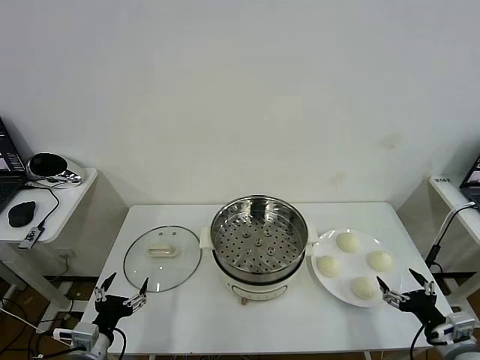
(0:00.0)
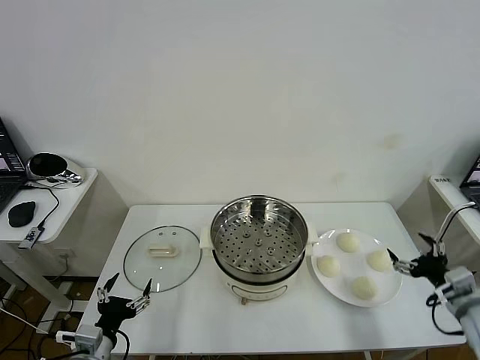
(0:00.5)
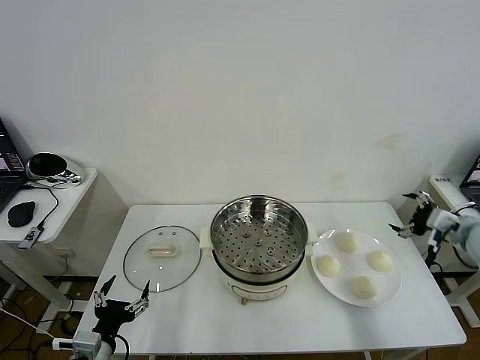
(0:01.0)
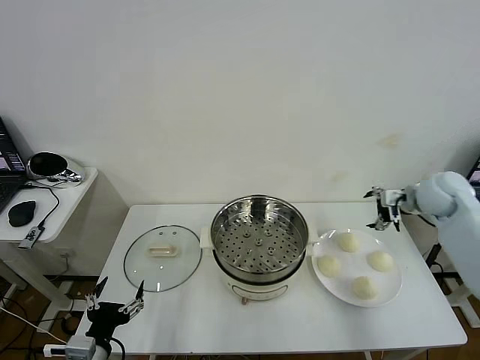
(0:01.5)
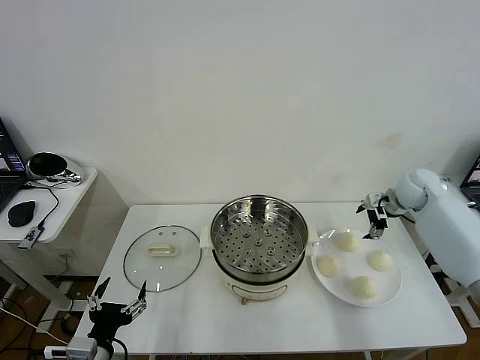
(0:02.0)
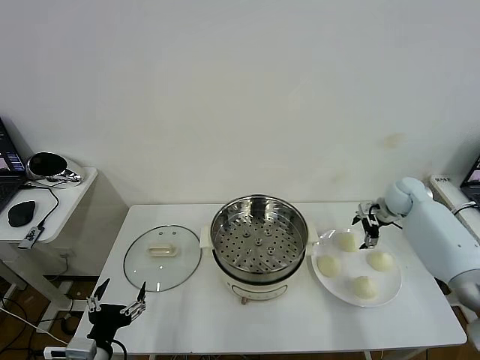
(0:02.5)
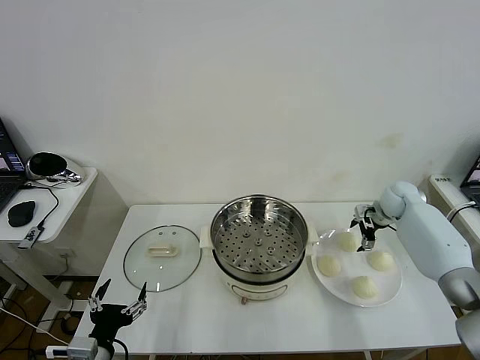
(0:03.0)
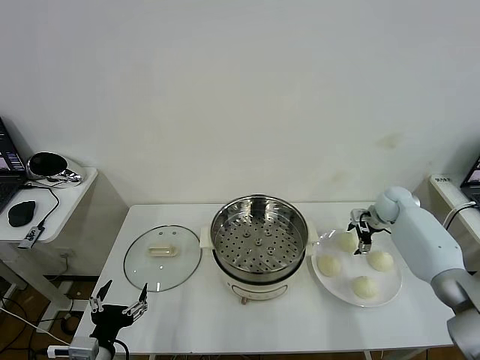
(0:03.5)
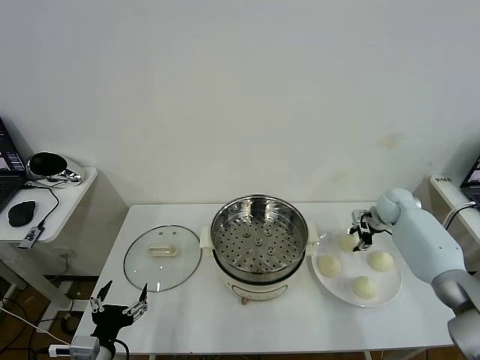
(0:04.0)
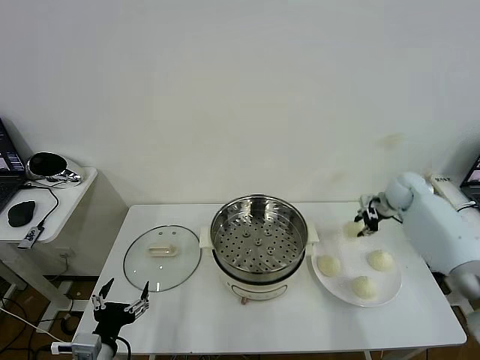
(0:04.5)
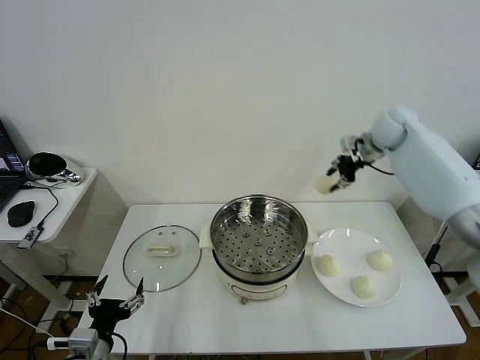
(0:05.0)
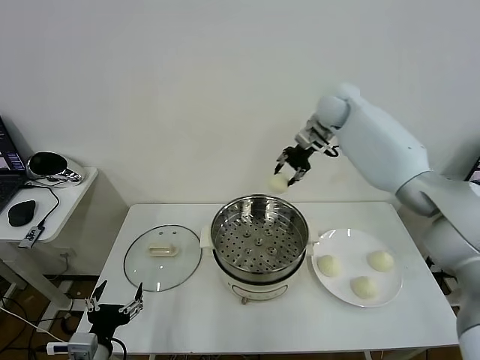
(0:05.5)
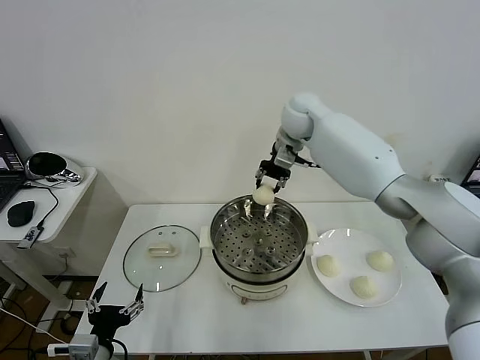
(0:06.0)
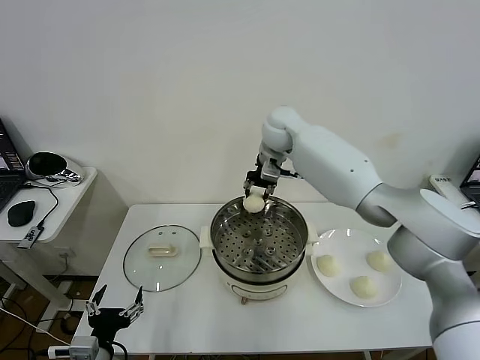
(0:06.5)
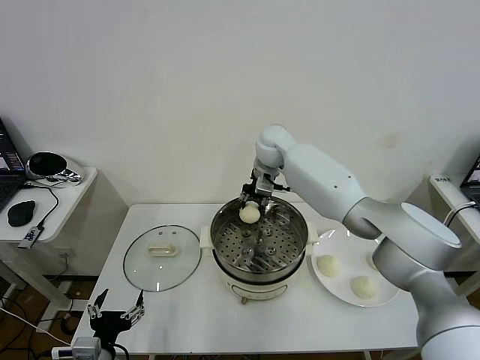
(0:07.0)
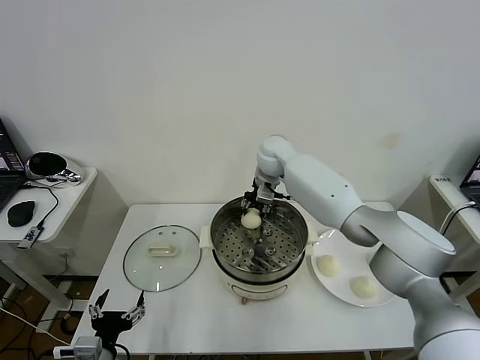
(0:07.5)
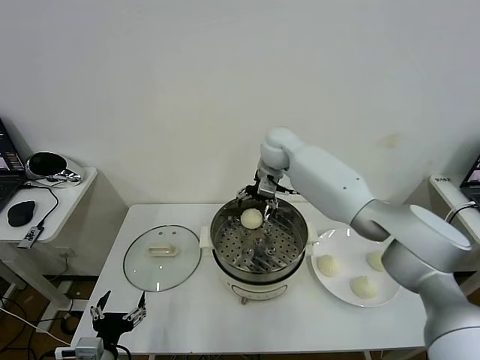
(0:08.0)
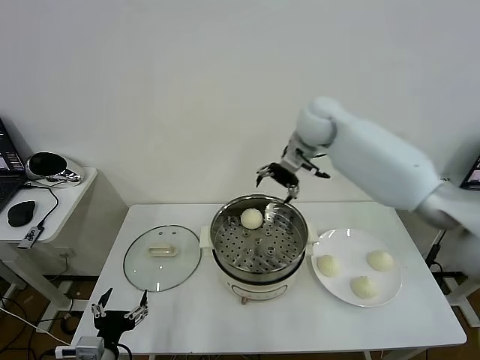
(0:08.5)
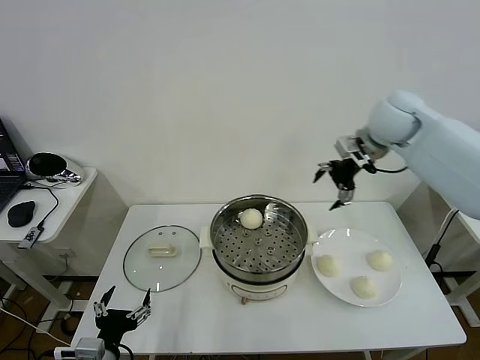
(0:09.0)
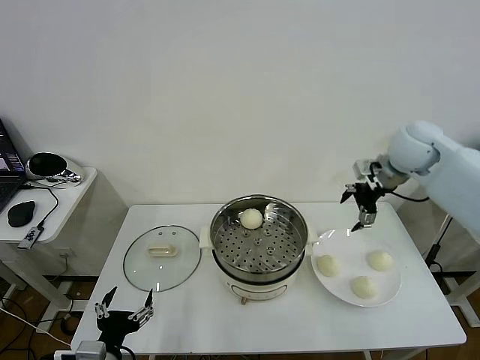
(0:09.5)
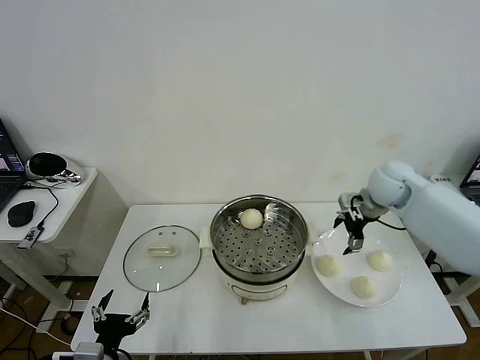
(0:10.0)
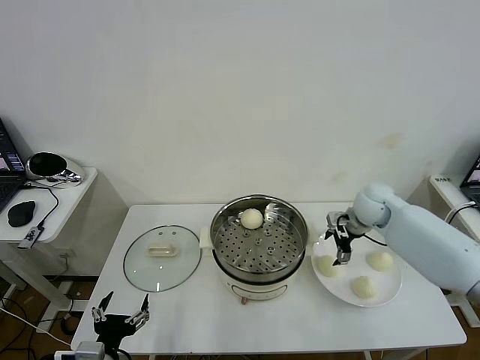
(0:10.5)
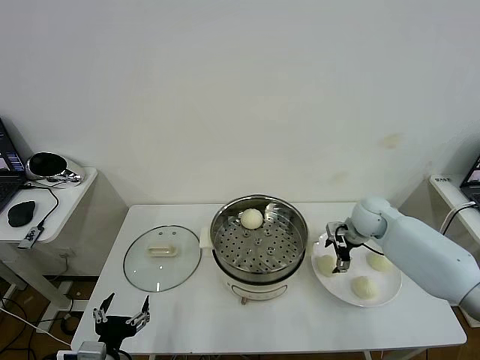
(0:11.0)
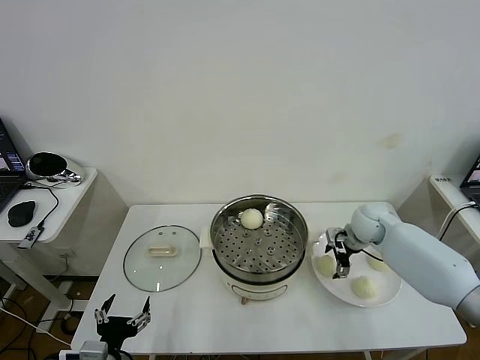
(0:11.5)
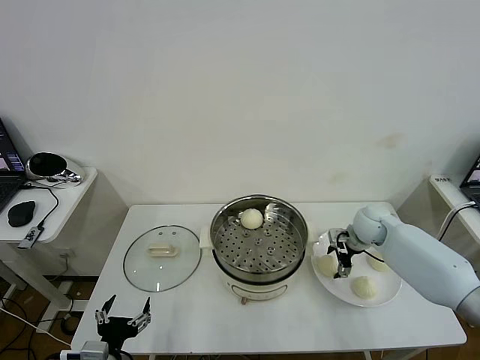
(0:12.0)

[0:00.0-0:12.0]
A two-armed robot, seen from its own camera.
Task of the whole recording: take steamed baozi put them in steamer then cover it.
Step, 0:00.0 to 0:04.0: Grasp the baozi in the plate with right gripper.
Step, 0:04.5 to 0:07.5: Place the baozi on the steamer with right gripper.
0:02.0 to 0:04.0: The right gripper is displaced downward by roughly 5 cm, and closes up.
0:04.0 to 0:06.0: The right gripper moves to the left and upward, roughly 40 cm.
0:06.0 to 0:08.0: The right gripper shifts roughly 5 cm downward, and opens its fingers.
0:08.0 to 0:10.0: The right gripper is displaced to the right by some 25 cm.
0:10.0 to 0:12.0: The right gripper shifts some 10 cm downward.

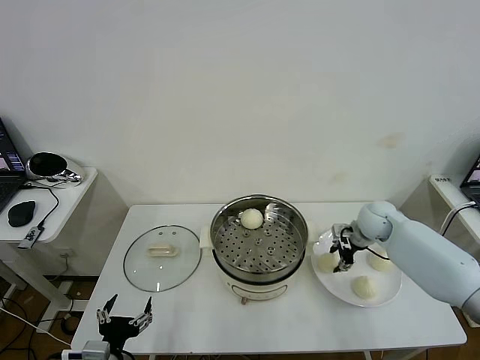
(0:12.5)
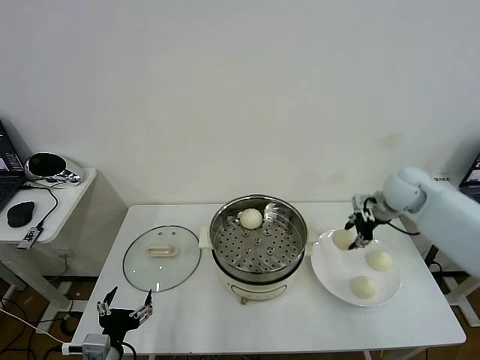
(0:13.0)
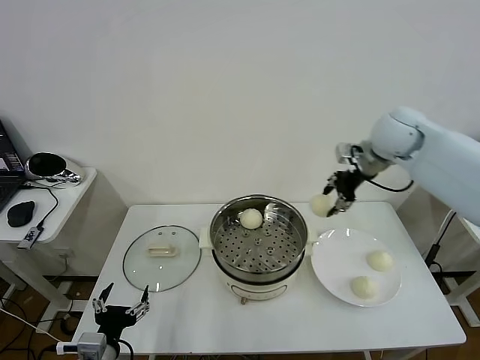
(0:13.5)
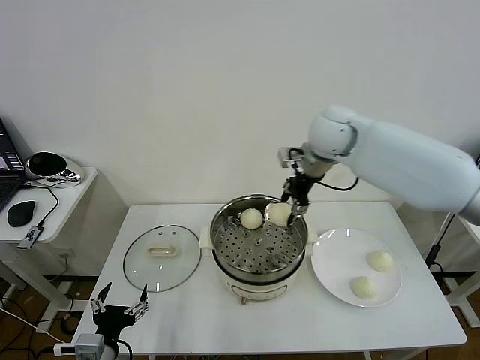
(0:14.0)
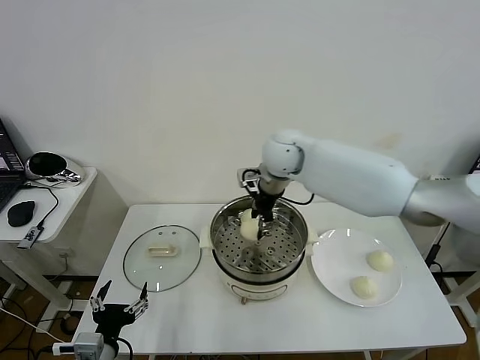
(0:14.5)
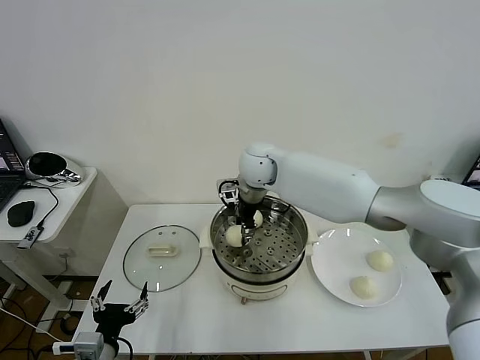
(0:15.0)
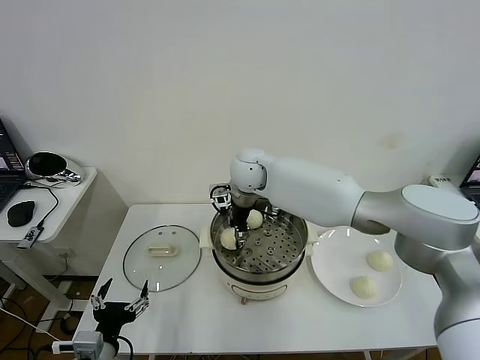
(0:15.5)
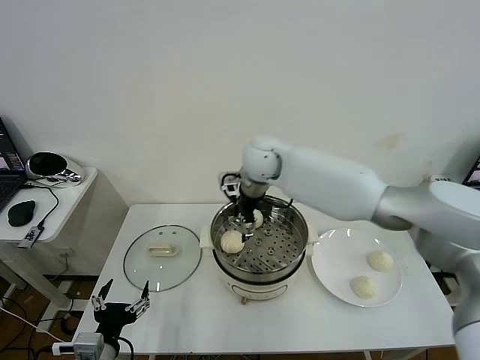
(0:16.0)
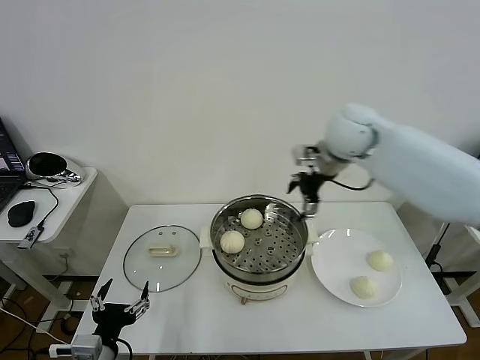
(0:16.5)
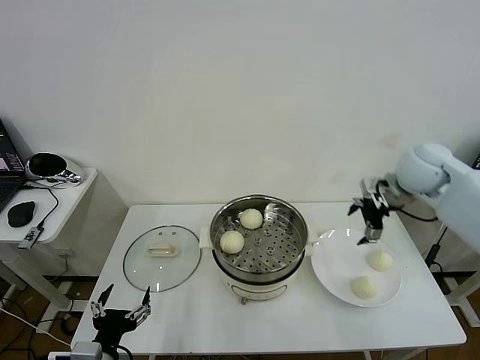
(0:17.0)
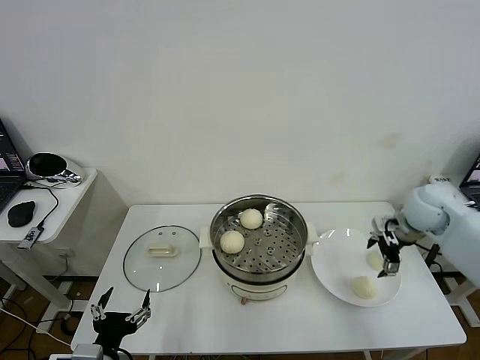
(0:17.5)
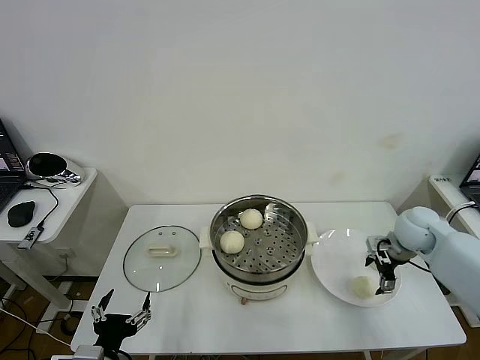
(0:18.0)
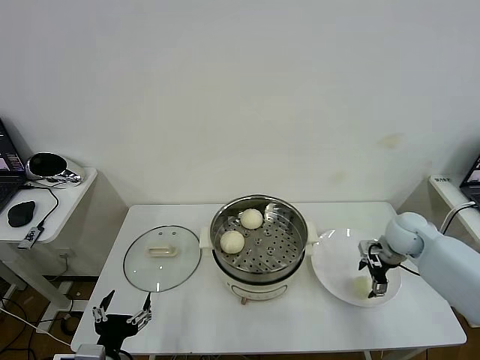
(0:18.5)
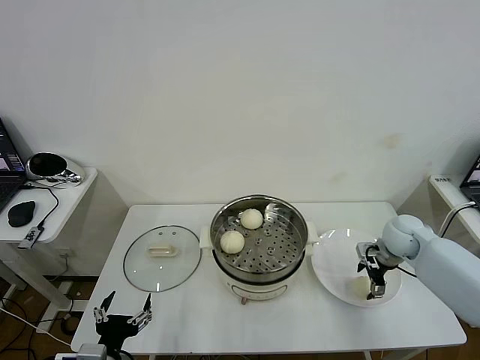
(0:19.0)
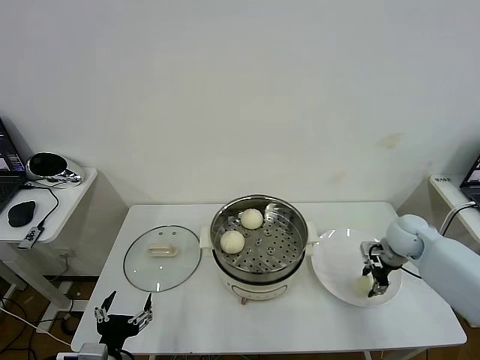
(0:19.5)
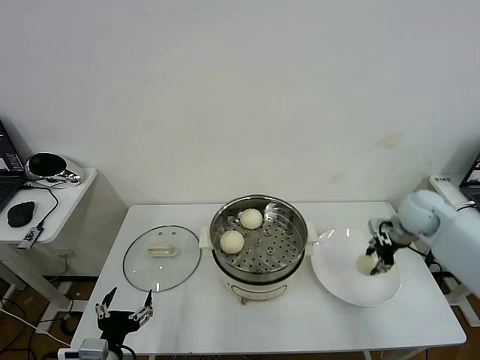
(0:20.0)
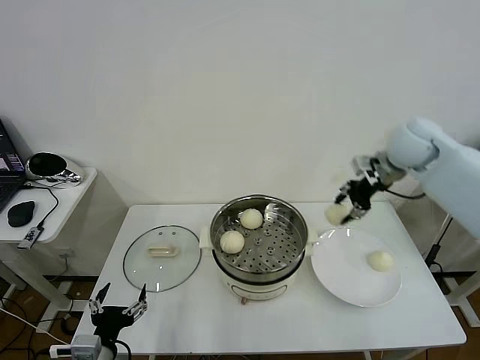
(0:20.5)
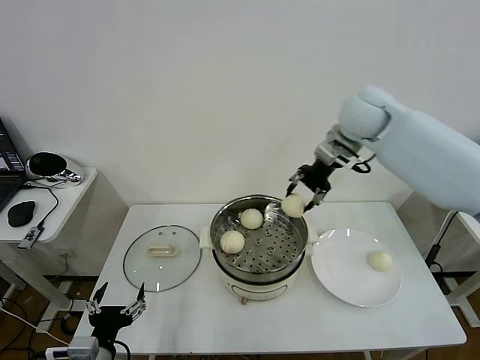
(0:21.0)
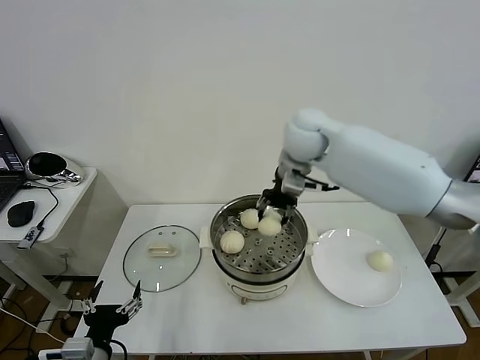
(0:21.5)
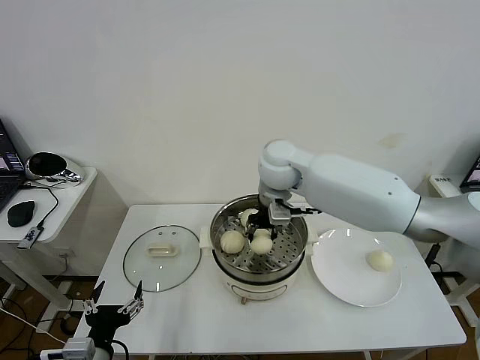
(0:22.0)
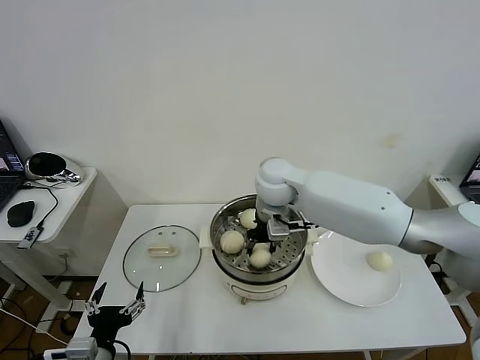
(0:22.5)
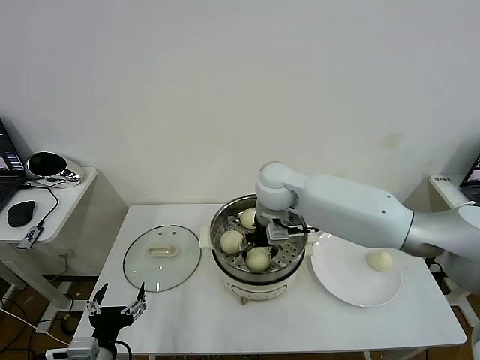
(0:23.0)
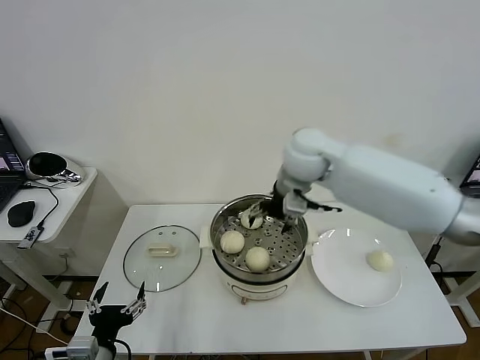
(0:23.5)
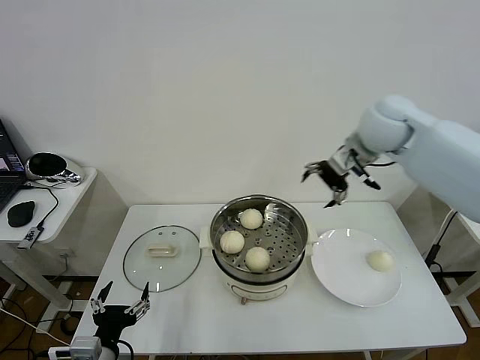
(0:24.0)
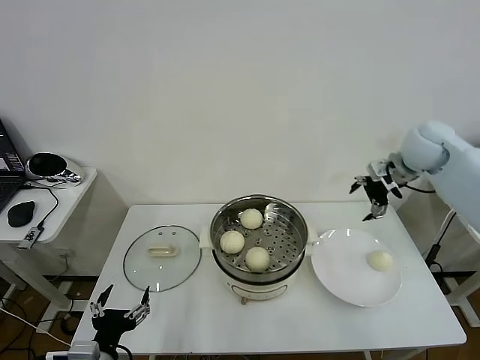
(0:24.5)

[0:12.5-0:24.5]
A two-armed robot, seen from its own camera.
Task of the whole recording: take steamed baozi put them in steamer then cover it.
Step, 0:12.5 to 0:15.5: Place the baozi on the steamer with right gripper.
Step, 0:16.0 to 0:19.5: Grasp the baozi in the plate with right gripper.
Step, 0:20.0 to 0:23.0: Place the baozi on the steamer with right gripper.
0:12.5 to 0:14.5: The right gripper is displaced to the left and upward by roughly 30 cm.
0:14.5 to 0:16.5: The right gripper is displaced to the right and upward by approximately 20 cm, and opens its fingers.
0:16.5 to 0:18.5: The right gripper shifts about 30 cm downward and to the right.
0:18.5 to 0:20.5: The right gripper shifts roughly 25 cm upward, and closes up.
0:20.5 to 0:22.5: The right gripper goes roughly 25 cm to the left.
0:22.5 to 0:24.5: The right gripper moves to the right, some 30 cm, and opens its fingers.

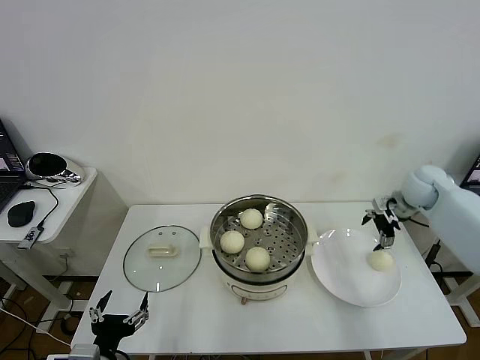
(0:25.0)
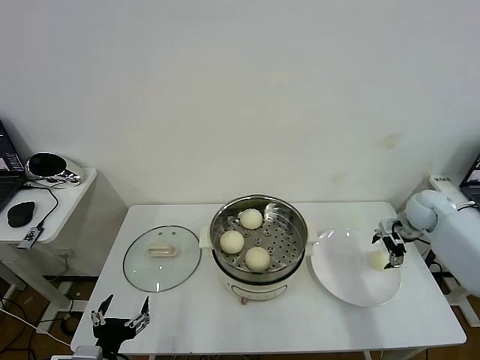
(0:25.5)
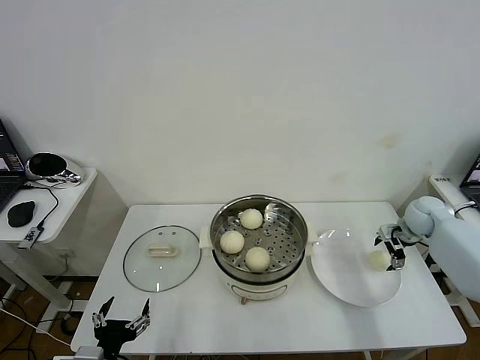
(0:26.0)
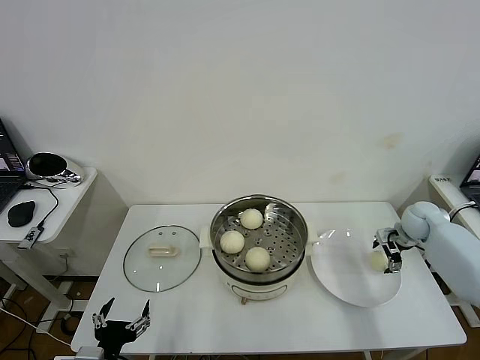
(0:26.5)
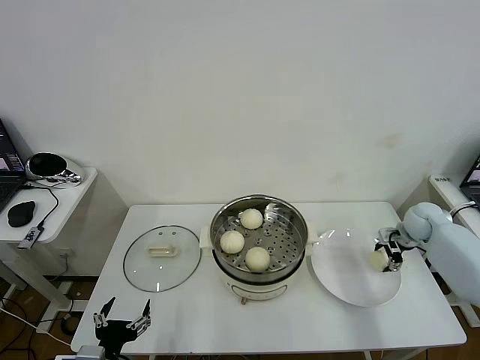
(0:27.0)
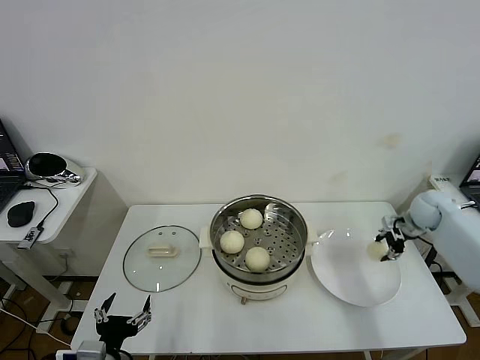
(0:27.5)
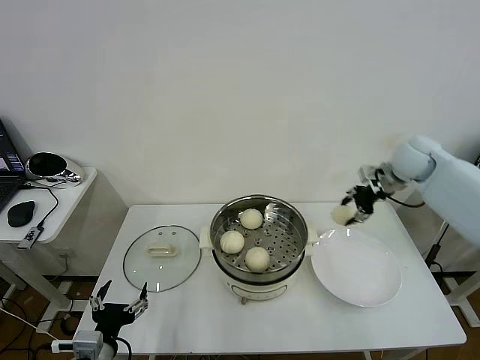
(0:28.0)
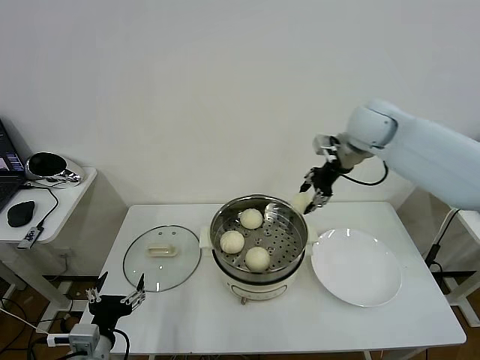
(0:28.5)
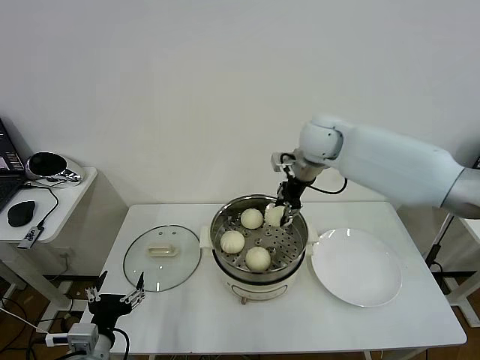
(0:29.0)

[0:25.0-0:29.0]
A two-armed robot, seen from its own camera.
Task of the whole recording: take steamed baozi put them in steamer then cover it.
Step, 0:25.0 to 0:27.0: Grasp the baozi in the plate with right gripper.
0:25.0 to 0:27.0: The right gripper goes some 10 cm downward, and closes up.
0:27.0 to 0:29.0: The right gripper shifts approximately 40 cm to the left and upward, and closes.
